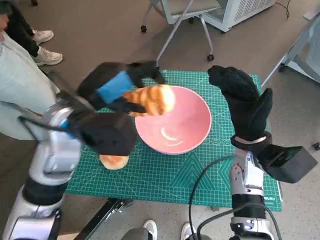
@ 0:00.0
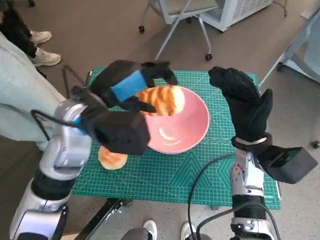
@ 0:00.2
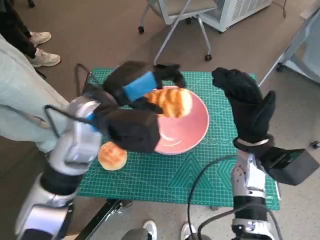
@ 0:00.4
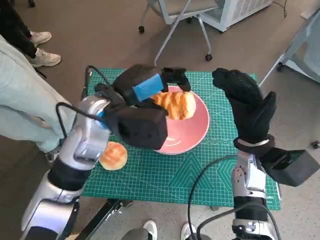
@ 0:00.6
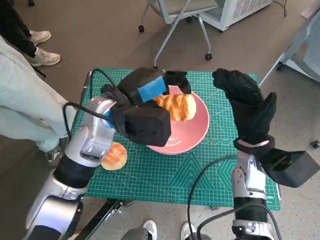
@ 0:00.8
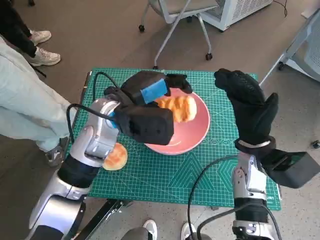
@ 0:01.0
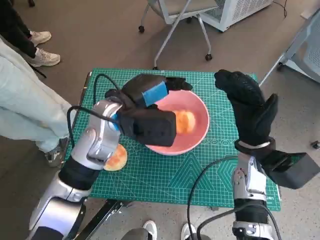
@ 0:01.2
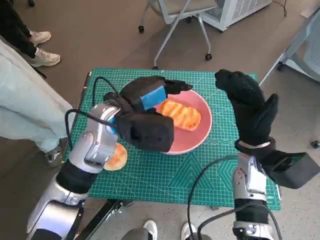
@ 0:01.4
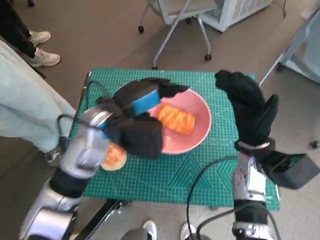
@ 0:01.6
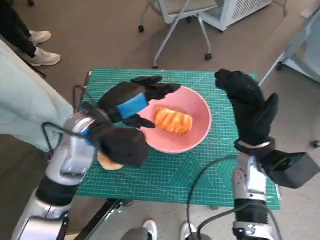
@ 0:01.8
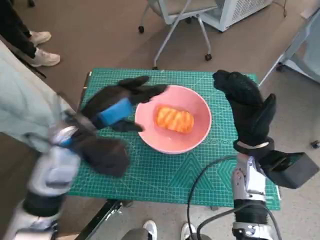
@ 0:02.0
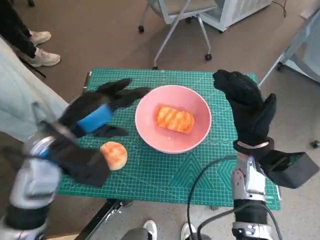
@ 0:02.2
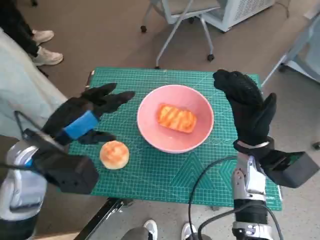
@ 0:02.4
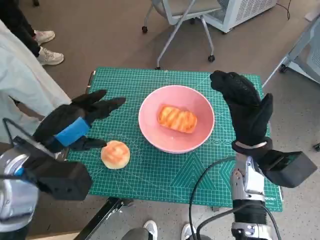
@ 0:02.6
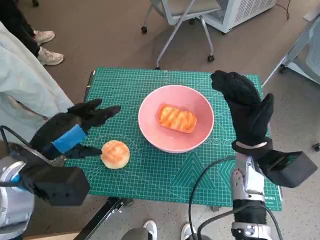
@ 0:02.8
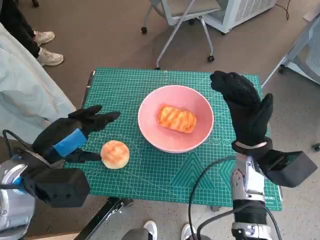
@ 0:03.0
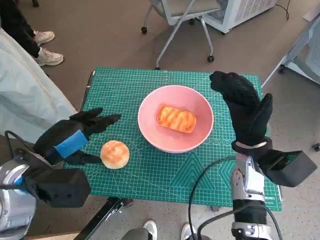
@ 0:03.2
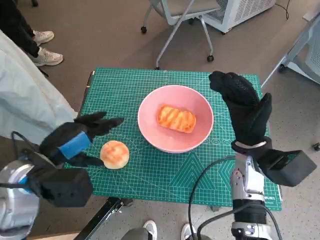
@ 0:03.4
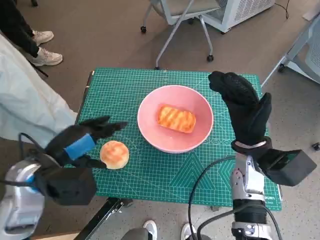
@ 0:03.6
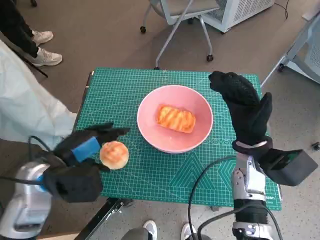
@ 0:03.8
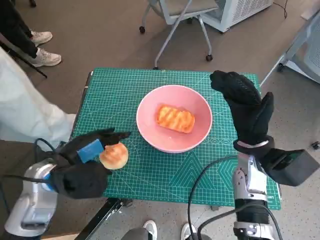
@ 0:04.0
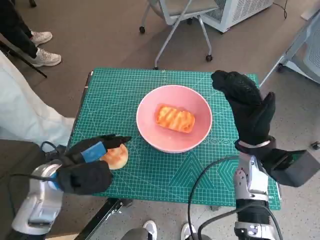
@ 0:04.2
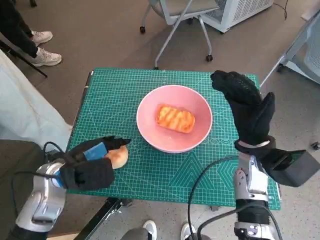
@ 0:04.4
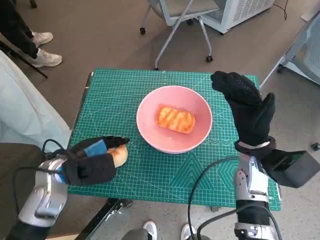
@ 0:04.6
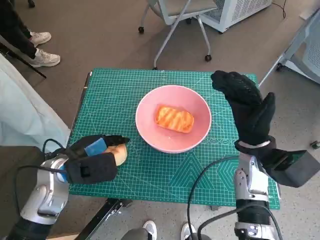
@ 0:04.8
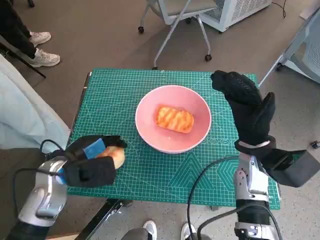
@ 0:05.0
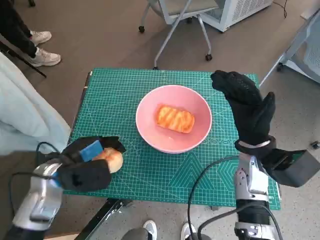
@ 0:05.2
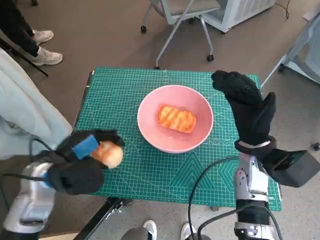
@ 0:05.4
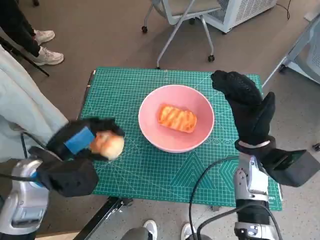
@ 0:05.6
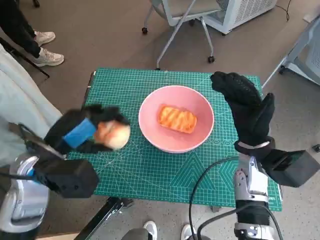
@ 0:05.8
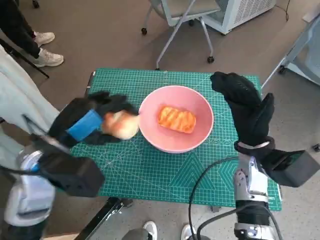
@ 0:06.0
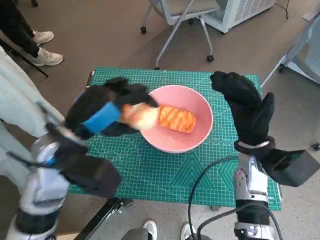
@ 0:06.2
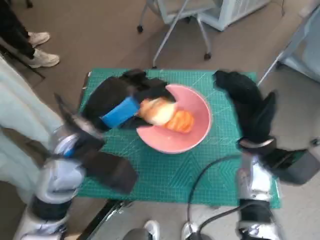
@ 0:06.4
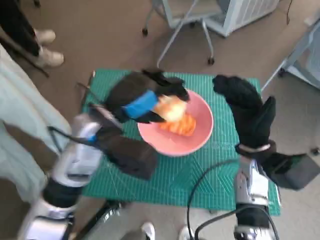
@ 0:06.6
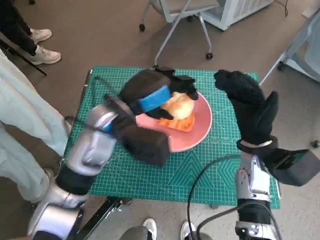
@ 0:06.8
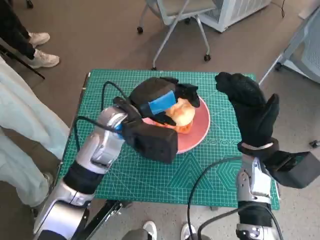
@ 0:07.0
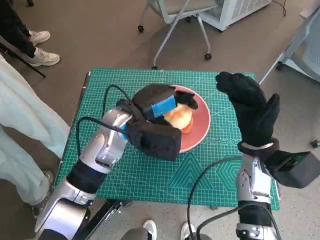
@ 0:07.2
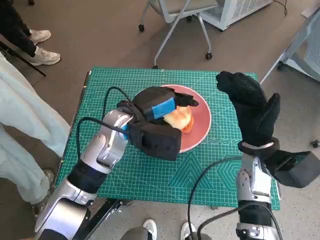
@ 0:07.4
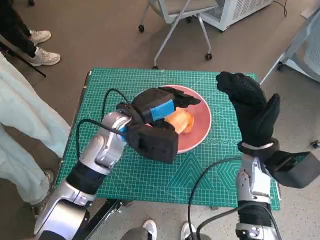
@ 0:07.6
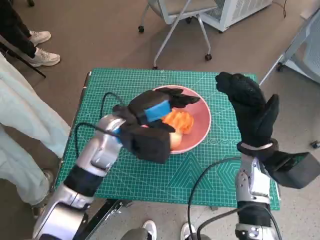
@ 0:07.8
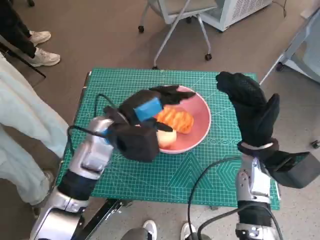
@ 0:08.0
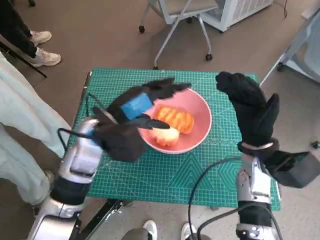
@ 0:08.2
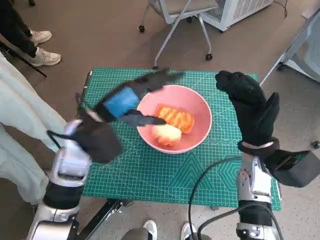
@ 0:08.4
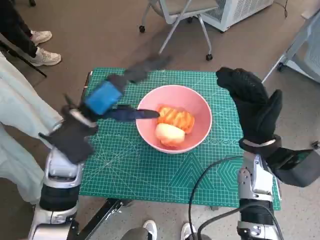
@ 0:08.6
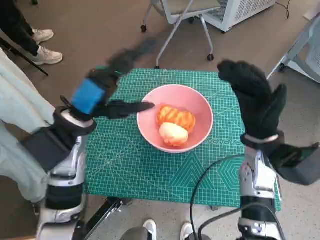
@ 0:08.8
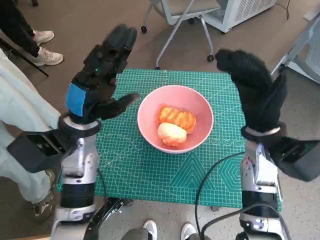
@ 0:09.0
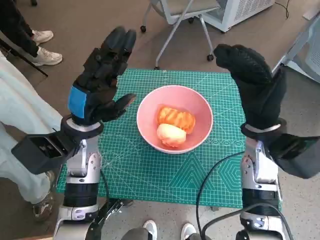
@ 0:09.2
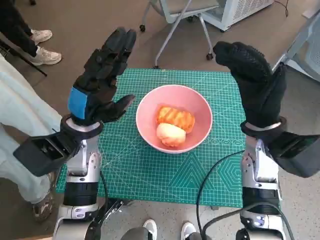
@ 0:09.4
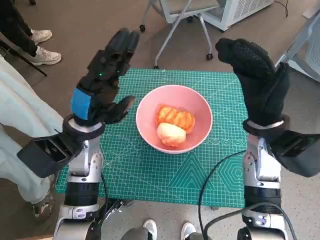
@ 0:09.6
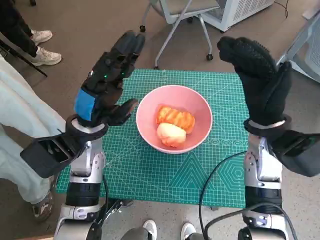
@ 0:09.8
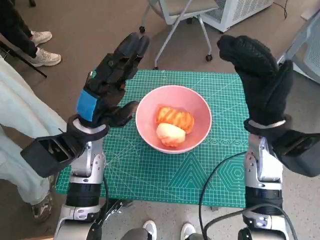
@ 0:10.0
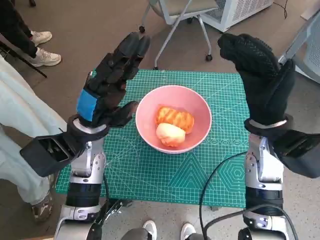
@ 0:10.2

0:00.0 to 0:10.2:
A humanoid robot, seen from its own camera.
Task of the whole recording: Push the bowl into the center of the table and put the bread into the bowl.
Step, 0:01.6 to 0:04.8: Grasp the round bread with left hand.
Step, 0:05.0 to 0:08.0: Place the round bread in pink bowl with left hand.
0:00.0 to 0:01.4: The left hand moves to the right, roughly 5 cm.
0:01.4 to 0:03.0: The left hand moves to the left and backward, about 15 cm.
0:03.0 to 0:04.4: The left hand is displaced downward by approximately 5 cm.
0:04.4 to 0:05.8: The left hand travels upward by about 5 cm.
0:05.8 to 0:07.2: The left hand moves to the right and forward, some 15 cm.
0:07.2 to 0:08.8: The left hand heads to the left, covering approximately 10 cm.

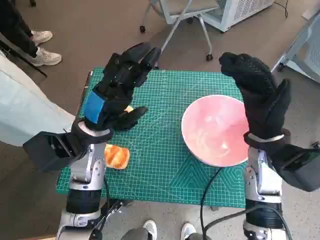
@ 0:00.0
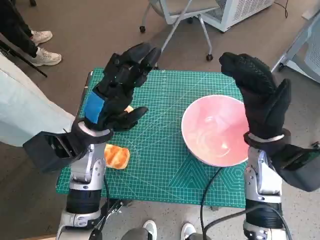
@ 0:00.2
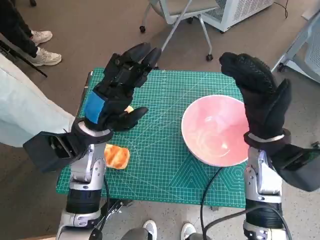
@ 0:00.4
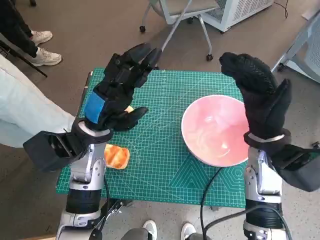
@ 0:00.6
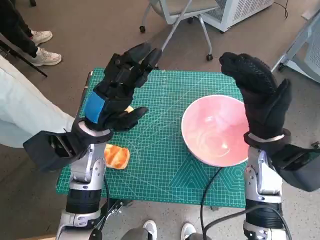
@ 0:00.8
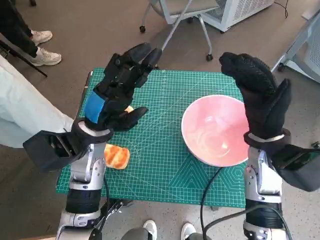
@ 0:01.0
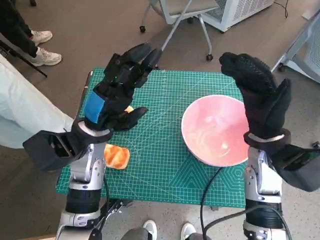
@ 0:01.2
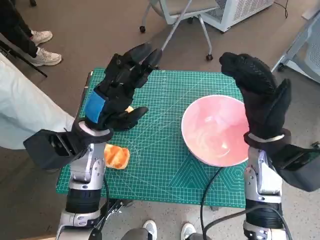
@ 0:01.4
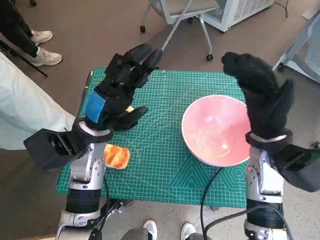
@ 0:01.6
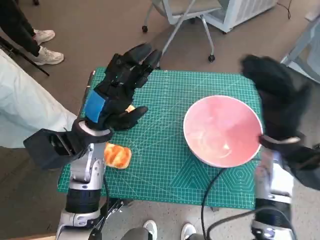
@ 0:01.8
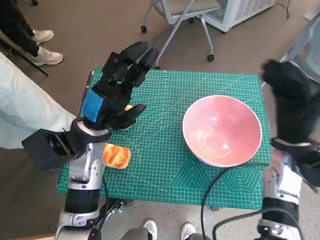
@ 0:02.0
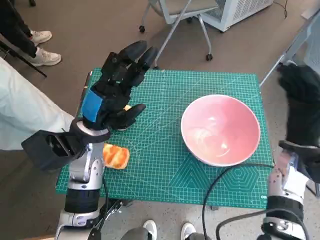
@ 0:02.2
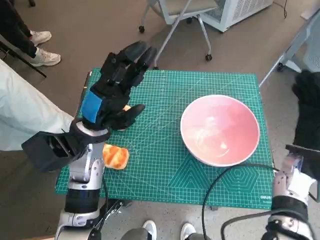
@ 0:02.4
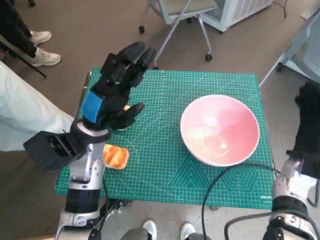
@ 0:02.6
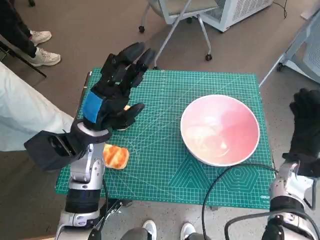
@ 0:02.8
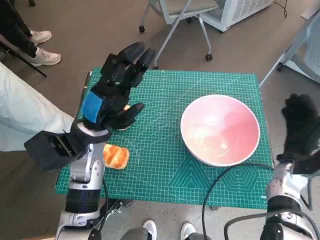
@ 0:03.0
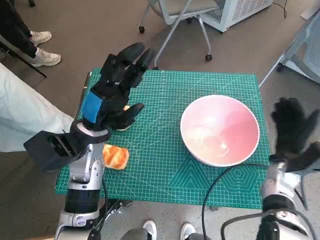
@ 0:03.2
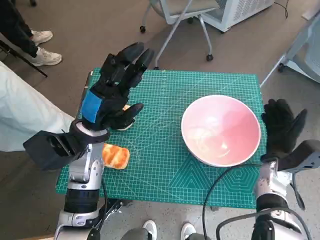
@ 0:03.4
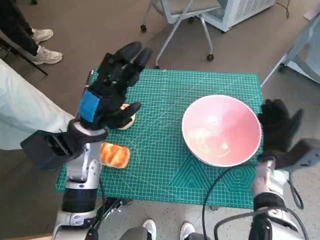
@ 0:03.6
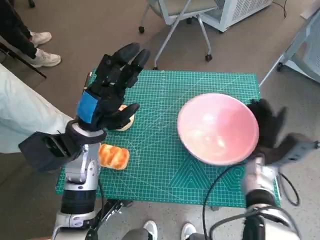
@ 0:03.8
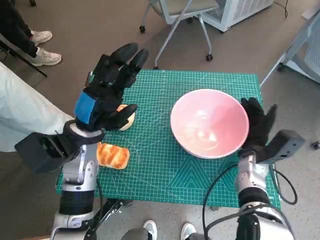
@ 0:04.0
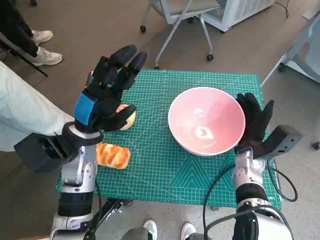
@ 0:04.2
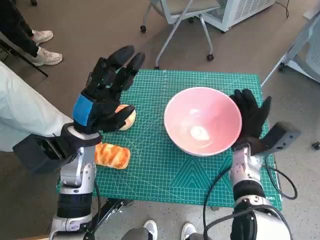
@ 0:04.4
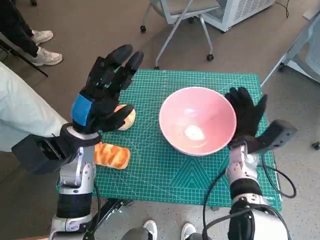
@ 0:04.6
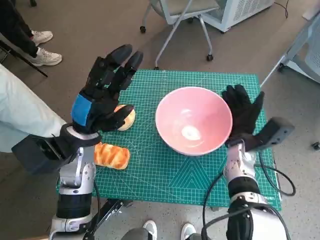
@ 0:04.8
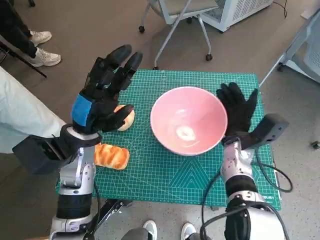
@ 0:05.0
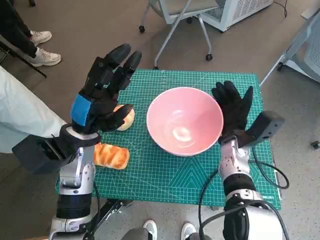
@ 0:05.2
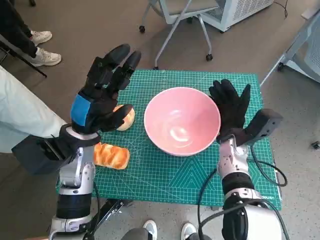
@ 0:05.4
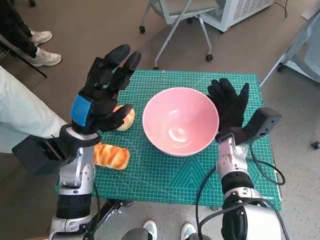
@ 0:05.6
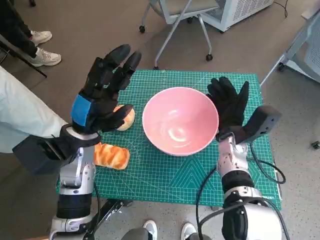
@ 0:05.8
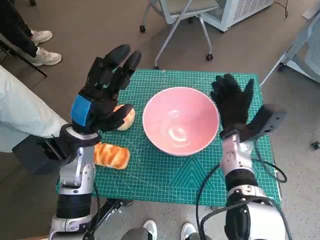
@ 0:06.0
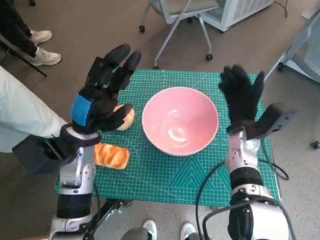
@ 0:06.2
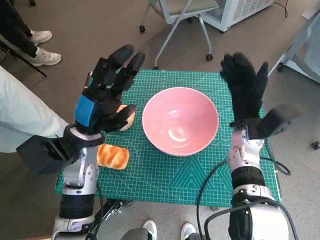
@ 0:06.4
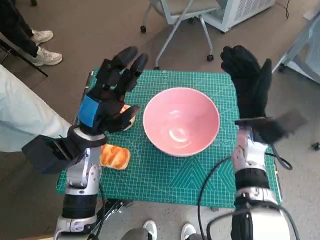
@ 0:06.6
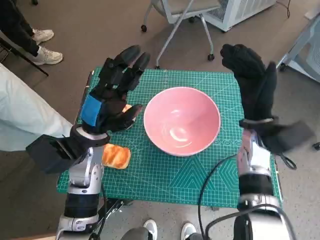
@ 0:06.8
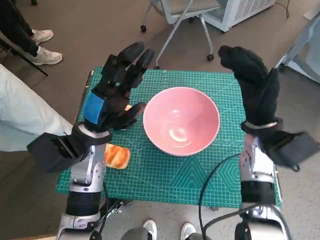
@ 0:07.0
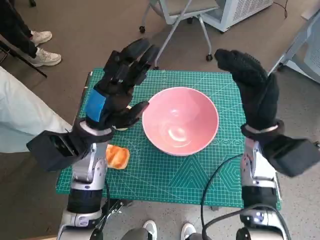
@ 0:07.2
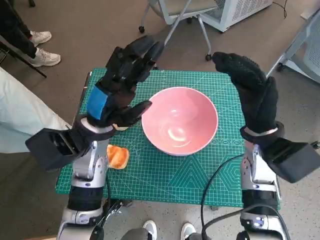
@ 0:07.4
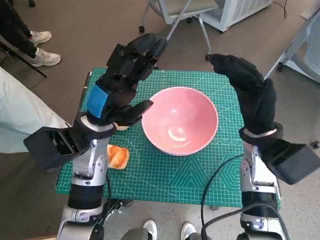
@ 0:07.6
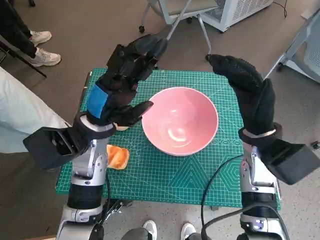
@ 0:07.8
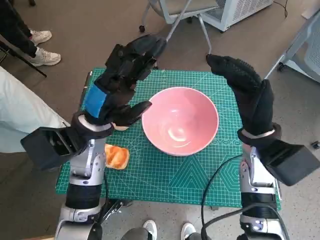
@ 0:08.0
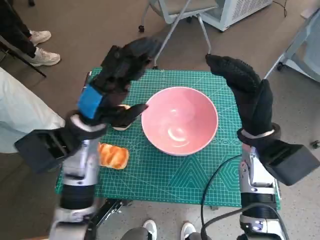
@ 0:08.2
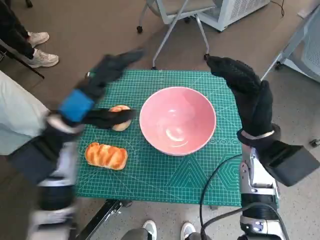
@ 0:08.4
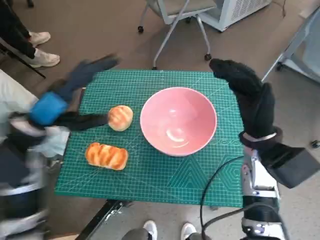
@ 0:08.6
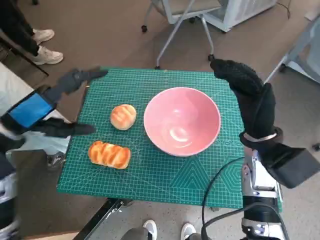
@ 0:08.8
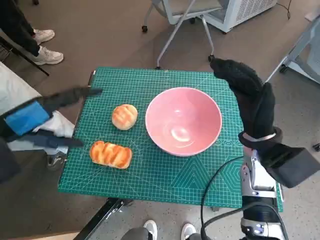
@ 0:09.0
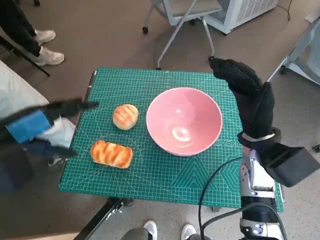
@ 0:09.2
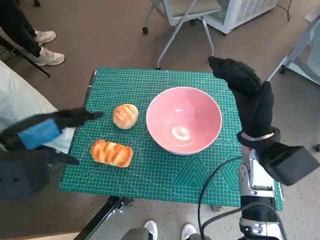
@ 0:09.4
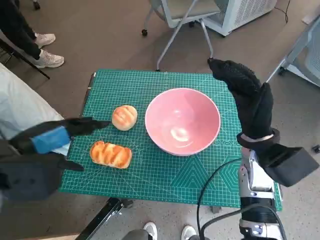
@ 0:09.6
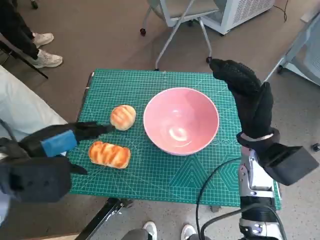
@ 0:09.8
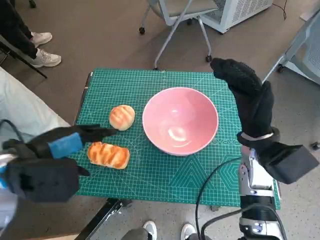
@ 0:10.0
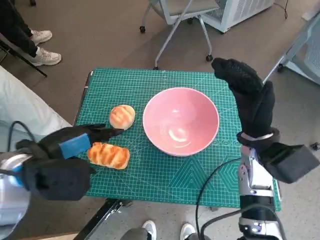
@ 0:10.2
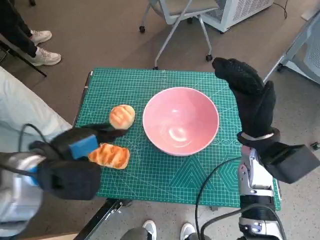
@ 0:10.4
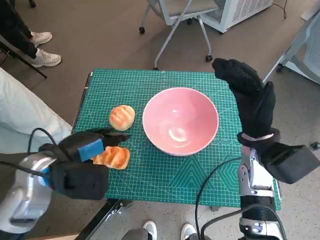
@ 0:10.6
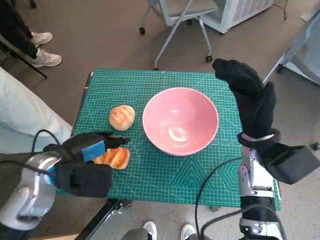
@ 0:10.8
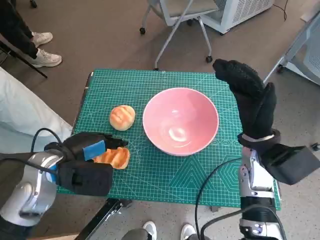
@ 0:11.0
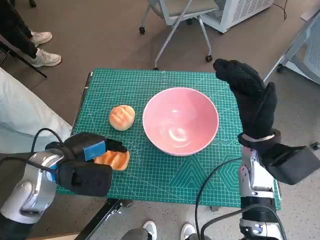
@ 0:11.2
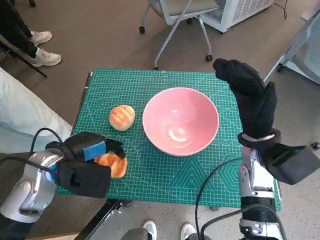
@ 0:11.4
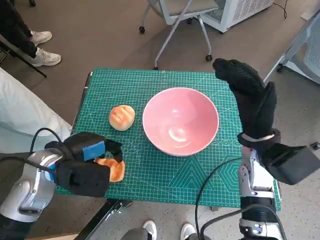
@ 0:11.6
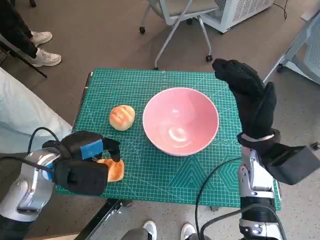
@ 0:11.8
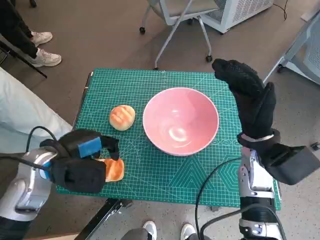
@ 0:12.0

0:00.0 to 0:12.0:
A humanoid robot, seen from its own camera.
Task of the whole recording: Push the bowl into the center of the table and put the bread into the bowl.
Step, 0:00.0 to 0:06.2: Move the pink bowl to the center of table with right hand.
Step, 0:06.4 to 0:11.4: Grasp the long bread with left hand.
0:01.6 to 0:03.0: The right hand shifts roughly 15 cm downward and to the right.
0:03.0 to 0:04.4: The right hand goes roughly 10 cm to the left.
0:06.0 to 0:07.6: The right hand moves upward, about 10 cm.
0:07.6 to 0:09.0: The left hand moves to the left, upward and backward, approximately 15 cm.
0:09.0 to 0:10.4: The left hand is displaced to the right by some 5 cm.
0:10.4 to 0:12.0: The hands move only a little.
